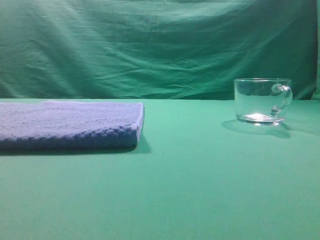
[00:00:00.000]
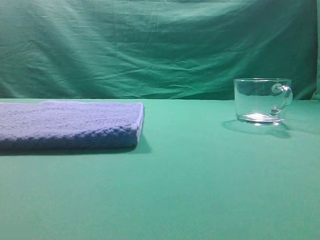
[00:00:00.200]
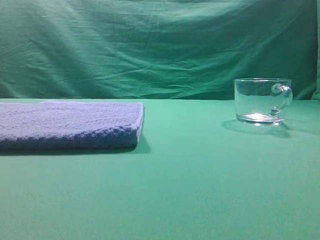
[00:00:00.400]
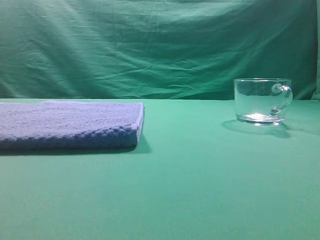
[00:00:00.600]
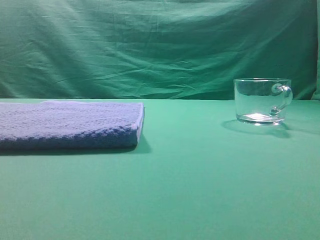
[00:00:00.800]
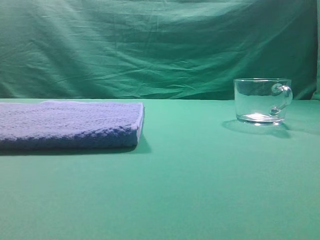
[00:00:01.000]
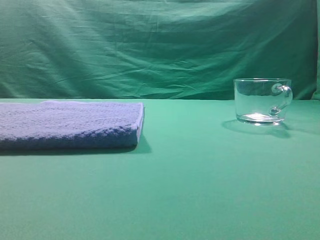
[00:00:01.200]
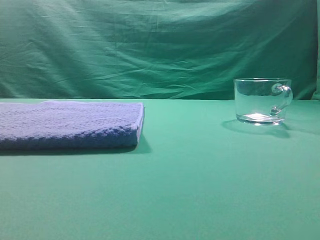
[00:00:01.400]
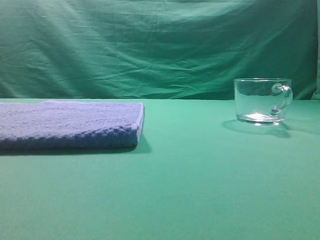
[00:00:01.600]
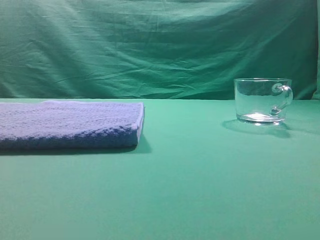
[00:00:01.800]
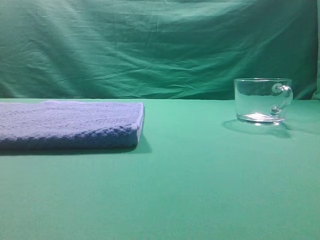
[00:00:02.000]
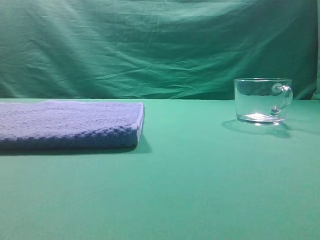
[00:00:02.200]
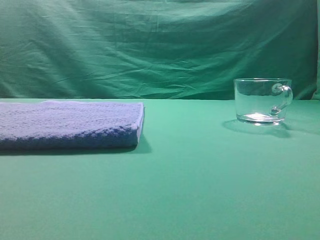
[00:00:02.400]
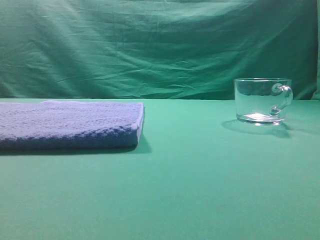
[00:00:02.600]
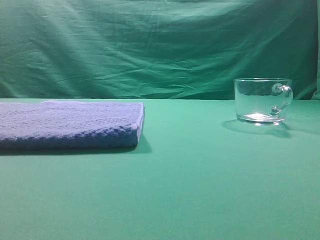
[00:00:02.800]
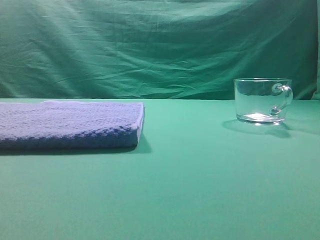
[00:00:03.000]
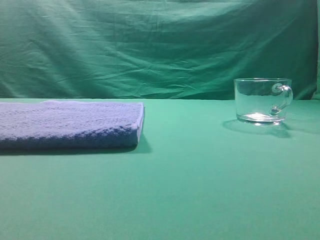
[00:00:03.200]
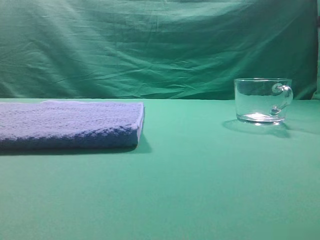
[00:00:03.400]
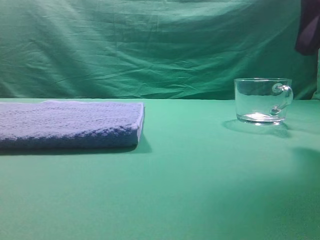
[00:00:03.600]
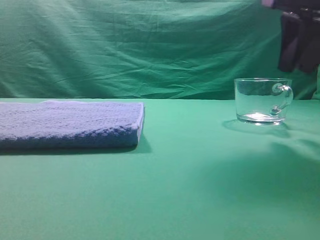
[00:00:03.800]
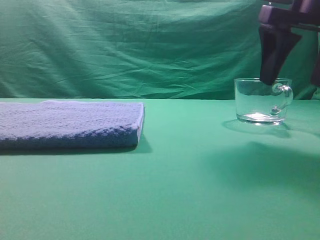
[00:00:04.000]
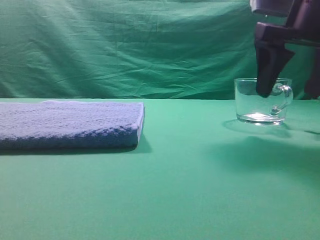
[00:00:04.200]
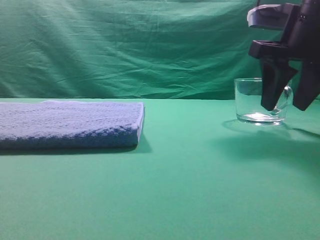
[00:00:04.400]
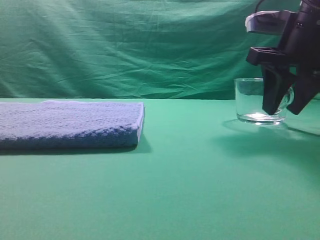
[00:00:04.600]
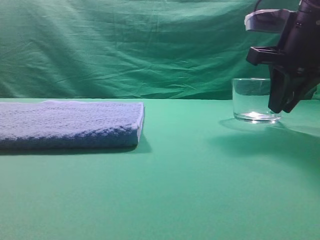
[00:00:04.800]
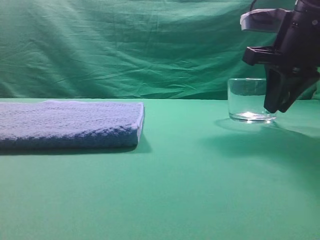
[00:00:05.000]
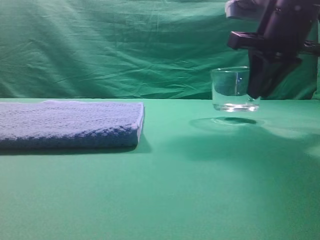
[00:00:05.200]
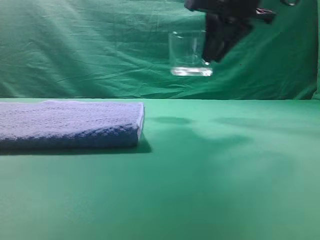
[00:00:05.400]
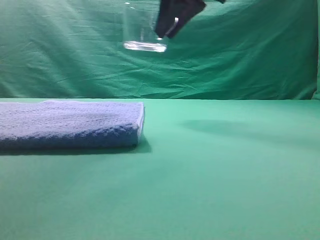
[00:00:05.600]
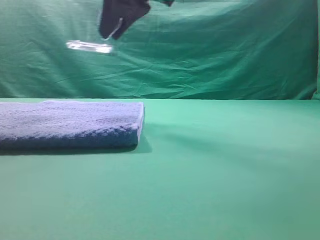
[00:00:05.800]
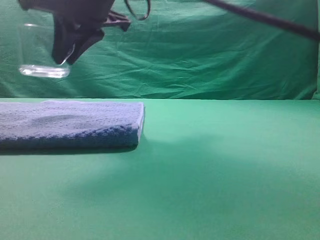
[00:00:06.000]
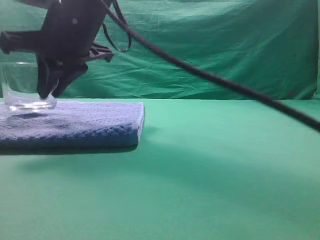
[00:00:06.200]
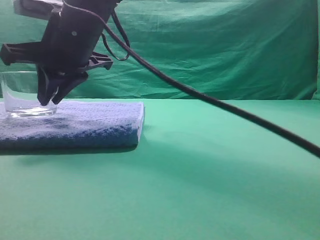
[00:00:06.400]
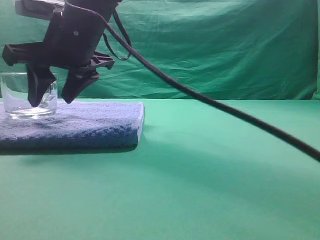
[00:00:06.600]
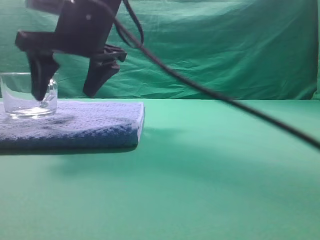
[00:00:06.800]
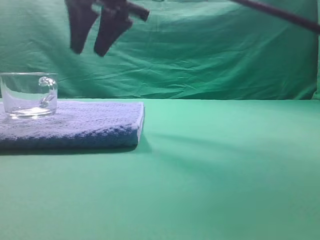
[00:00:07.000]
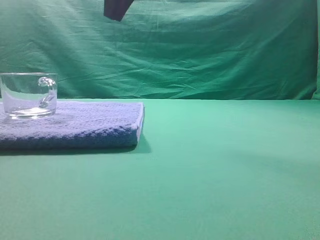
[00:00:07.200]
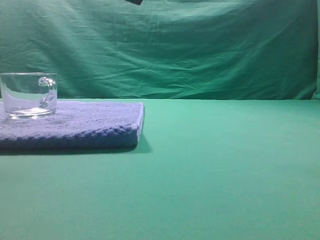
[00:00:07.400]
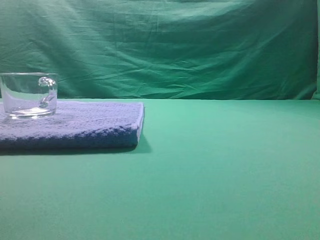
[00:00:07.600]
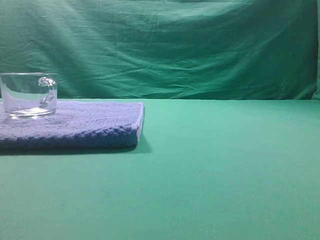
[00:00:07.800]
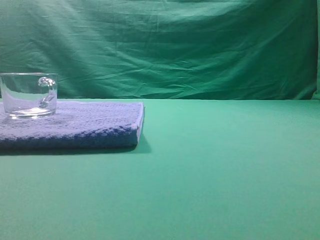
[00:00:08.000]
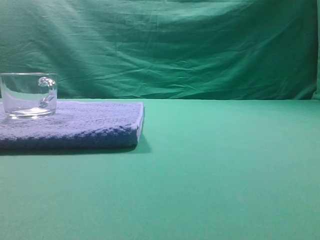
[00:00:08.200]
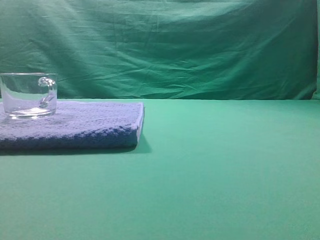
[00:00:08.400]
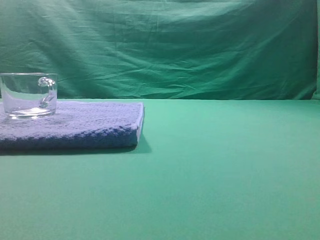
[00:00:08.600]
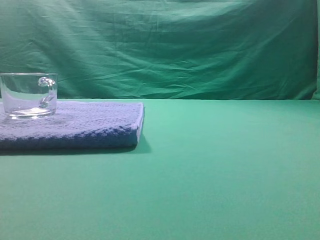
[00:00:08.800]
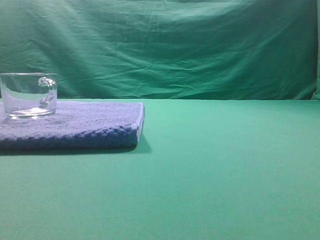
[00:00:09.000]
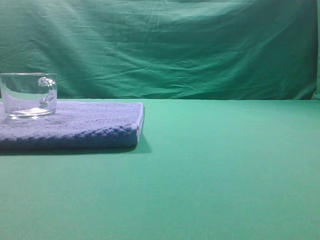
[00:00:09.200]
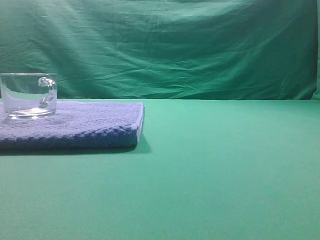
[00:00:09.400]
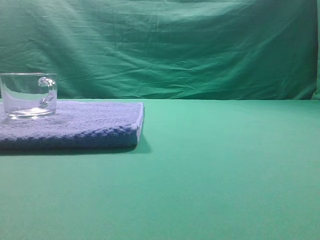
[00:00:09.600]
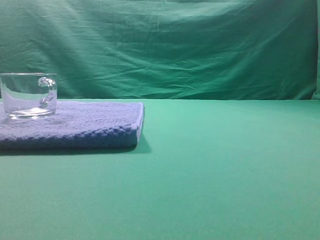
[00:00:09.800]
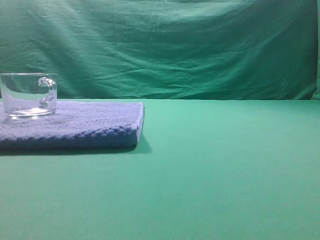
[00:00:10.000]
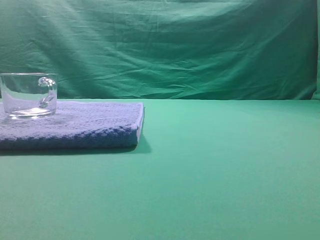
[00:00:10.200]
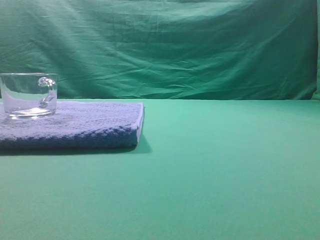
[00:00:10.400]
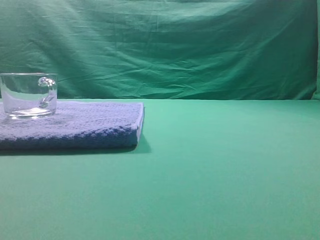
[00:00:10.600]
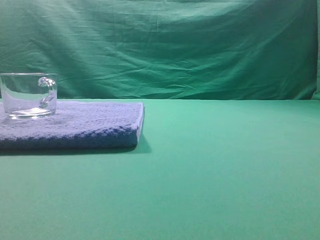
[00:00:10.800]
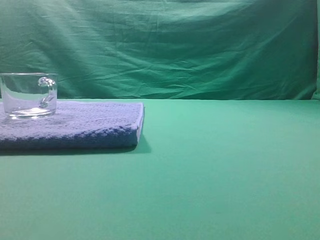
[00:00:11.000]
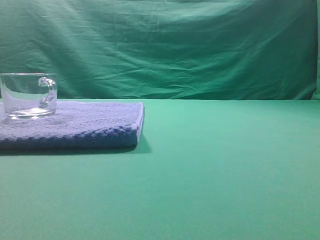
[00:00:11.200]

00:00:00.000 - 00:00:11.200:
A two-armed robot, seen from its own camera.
Task of the whole recording: grasp the transparent glass cup and place it within the blue towel.
Step, 00:00:00.000 - 00:00:04.200: Grasp the transparent glass cup.
Step, 00:00:04.600 - 00:00:06.800: Place the glass cup on the blue zone.
